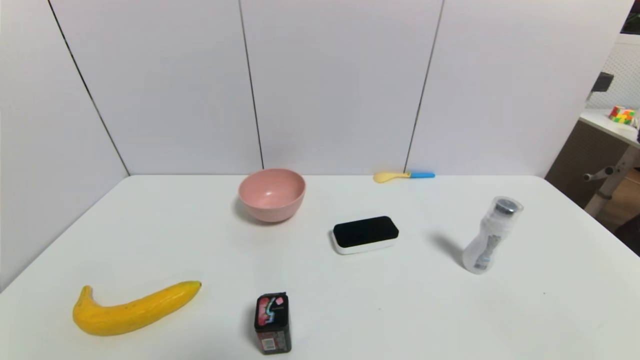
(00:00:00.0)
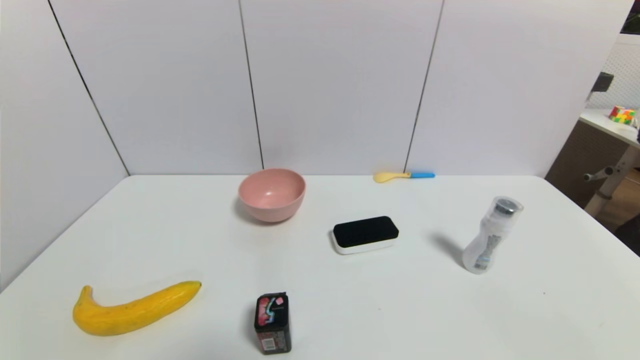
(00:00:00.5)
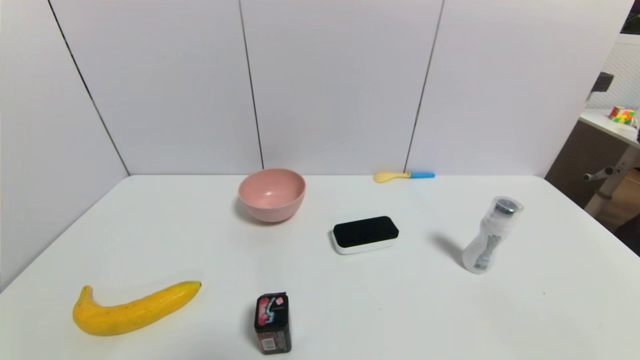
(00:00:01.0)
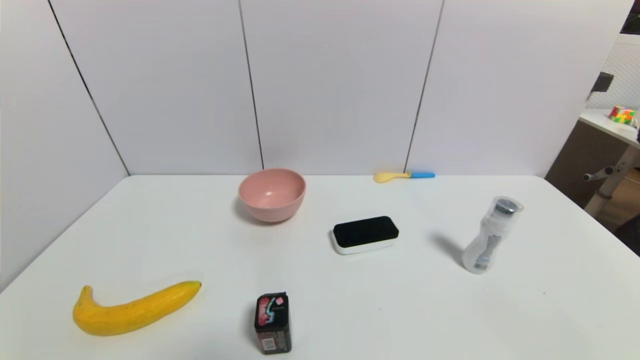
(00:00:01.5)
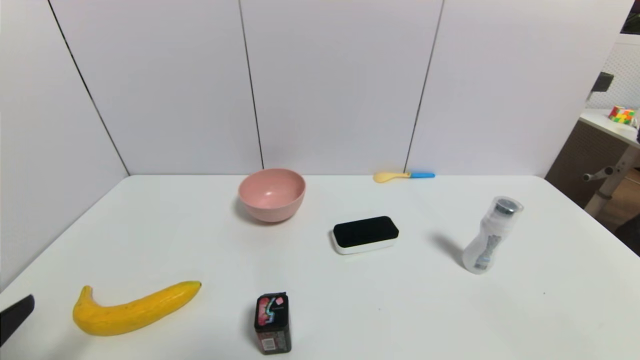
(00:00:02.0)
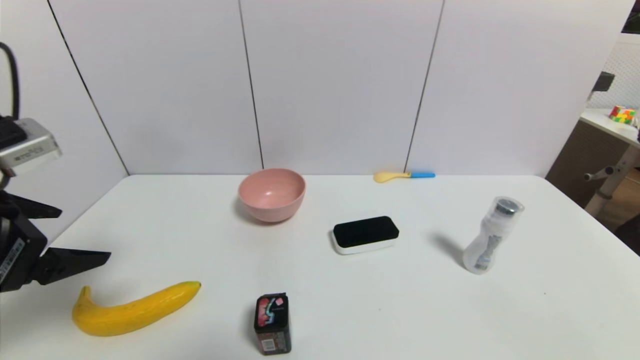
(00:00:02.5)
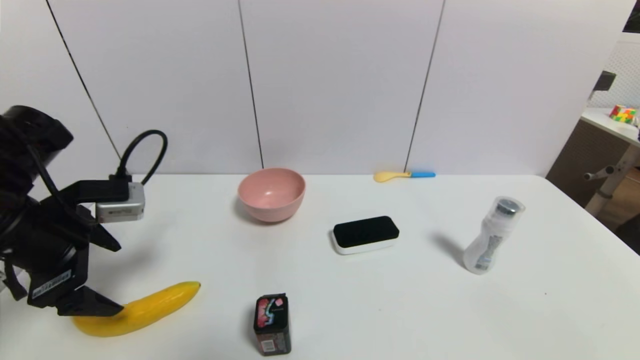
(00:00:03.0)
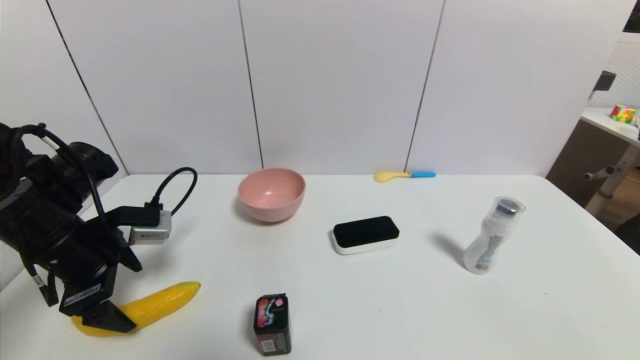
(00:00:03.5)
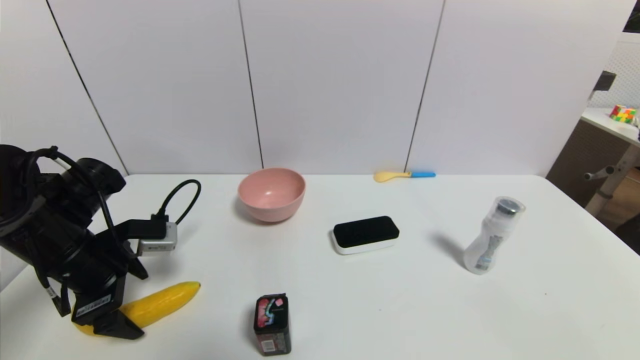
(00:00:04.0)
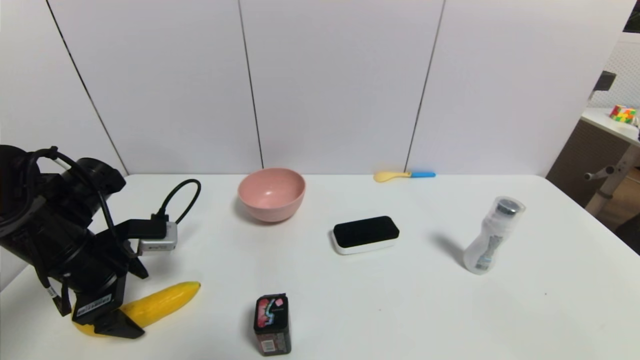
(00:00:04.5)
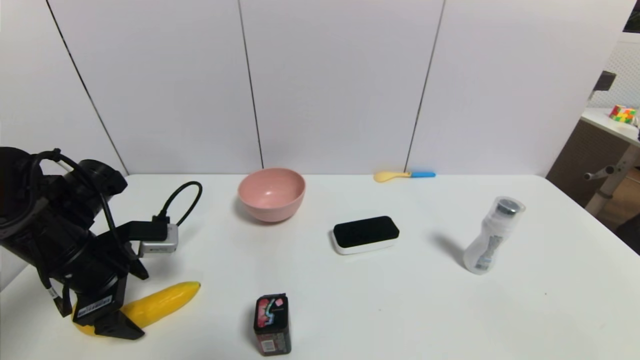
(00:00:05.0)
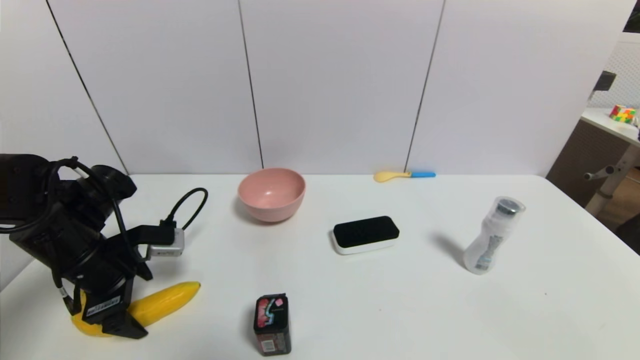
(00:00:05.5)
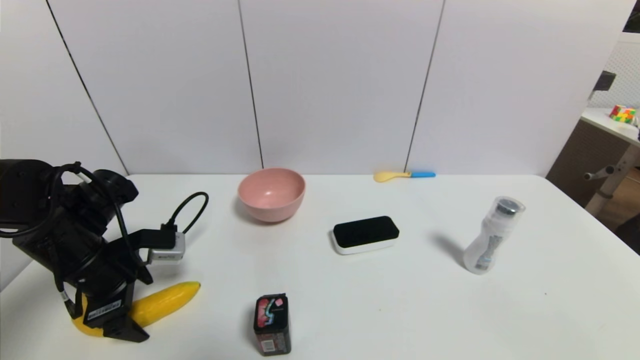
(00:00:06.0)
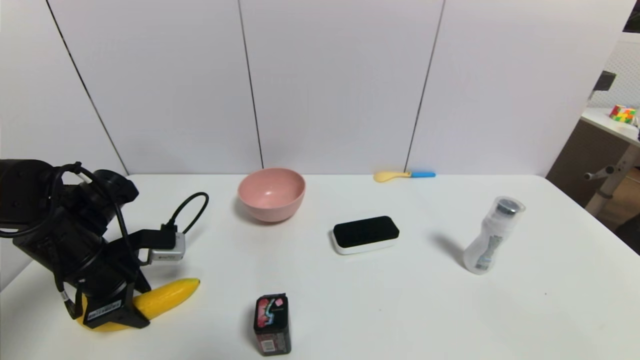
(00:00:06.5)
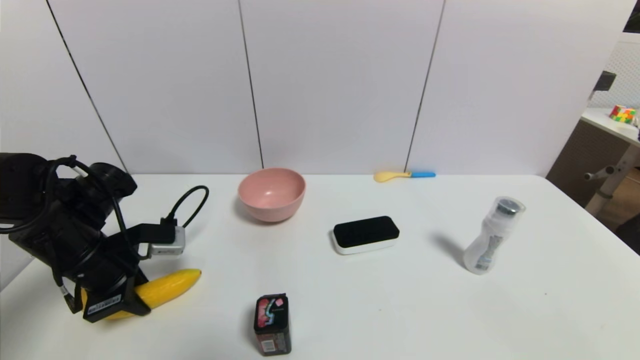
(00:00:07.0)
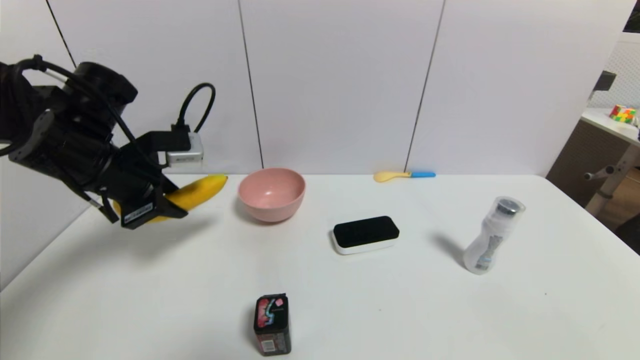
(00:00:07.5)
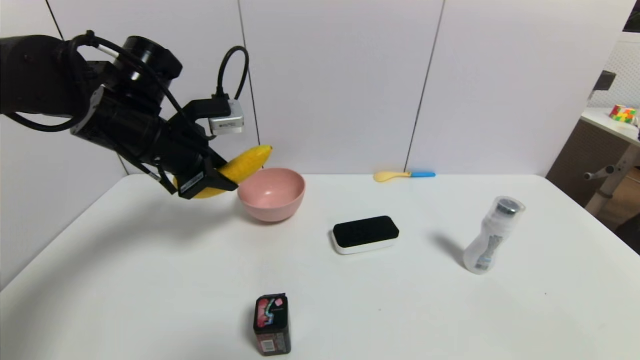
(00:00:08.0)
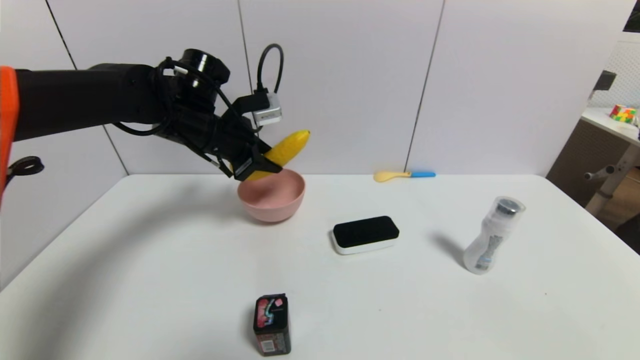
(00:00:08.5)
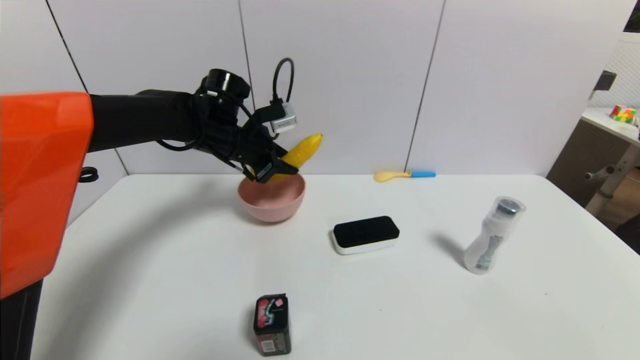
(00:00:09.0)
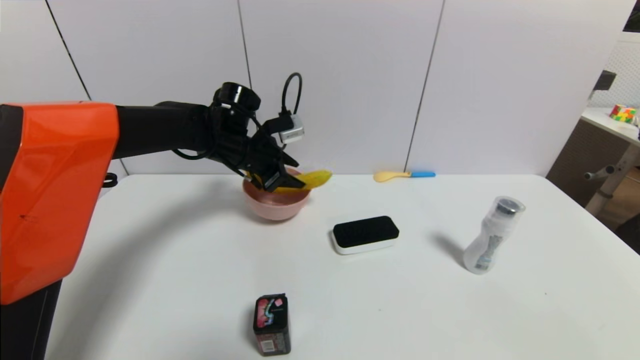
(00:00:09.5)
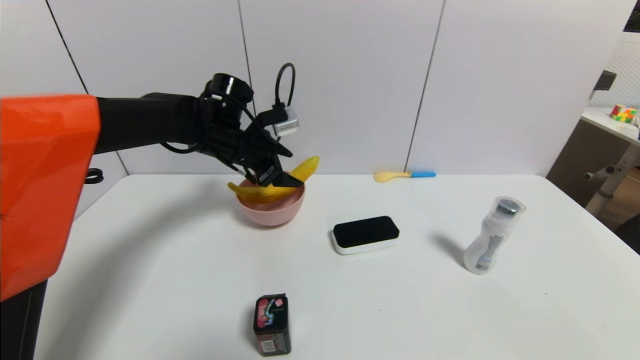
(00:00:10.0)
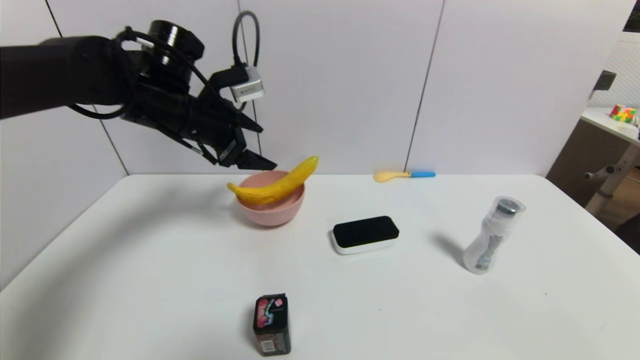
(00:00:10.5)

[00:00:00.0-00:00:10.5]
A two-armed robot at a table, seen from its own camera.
Task of the whole recording: use a gripper to pick the target object and place on the pink bowl.
Step, 00:00:00.0 to 00:00:06.5: Grasp the banana with the left gripper.
00:00:00.0 to 00:00:02.0: The left gripper travels upward by some 15 cm.
00:00:02.0 to 00:00:04.0: The left gripper goes approximately 20 cm forward.
00:00:04.0 to 00:00:06.5: The left gripper closes its fingers.
00:00:06.5 to 00:00:08.5: The left gripper travels forward, to the right and upward by approximately 20 cm.
00:00:08.5 to 00:00:10.5: The left gripper moves some 5 cm, and opens.

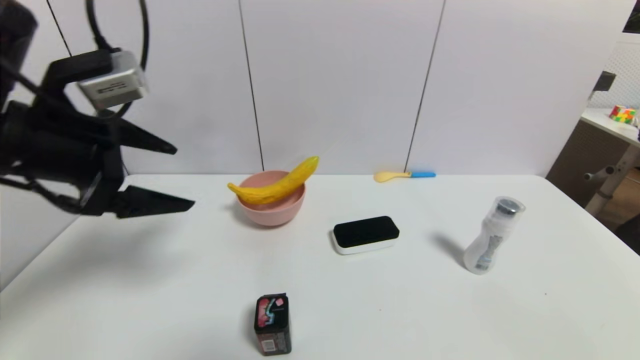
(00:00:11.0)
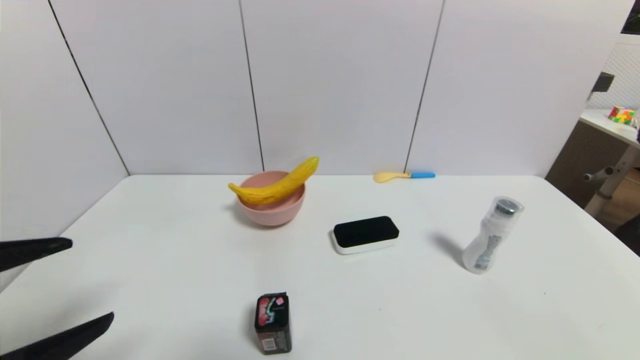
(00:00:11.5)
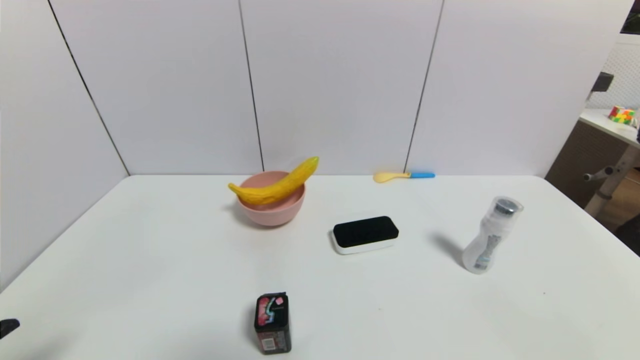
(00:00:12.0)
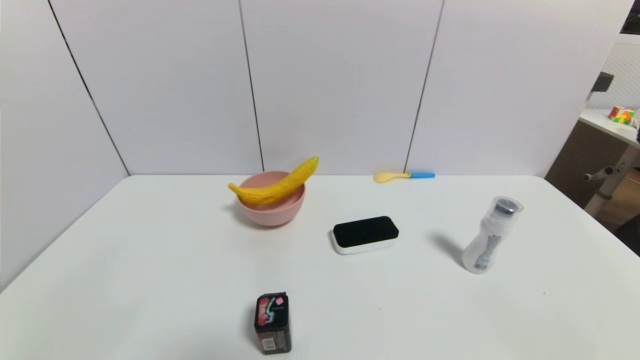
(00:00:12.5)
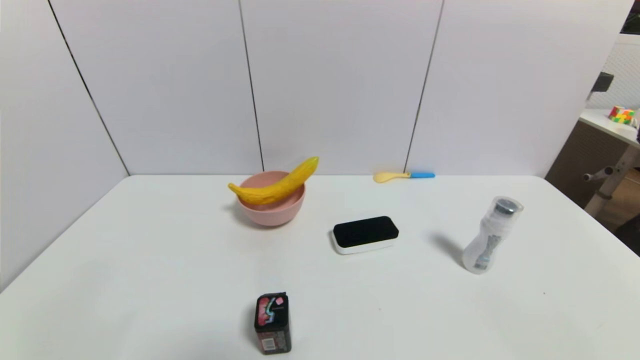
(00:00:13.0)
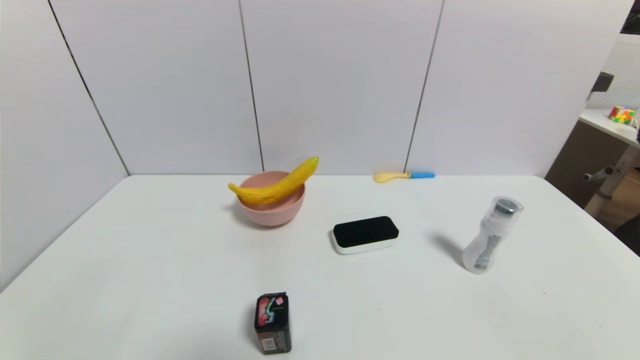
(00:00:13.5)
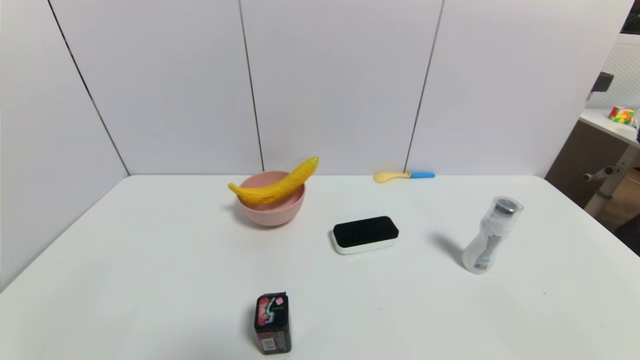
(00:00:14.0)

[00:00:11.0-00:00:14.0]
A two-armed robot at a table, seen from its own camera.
Task of the whole recording: use a gripper to pick the target object and place on the pink bowl.
00:00:11.0 to 00:00:12.5: The left gripper shifts about 30 cm downward and backward.
